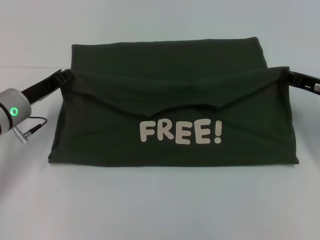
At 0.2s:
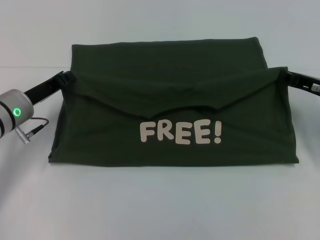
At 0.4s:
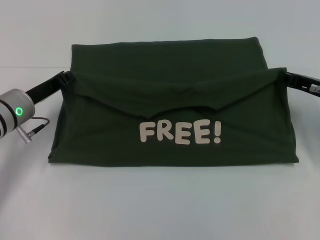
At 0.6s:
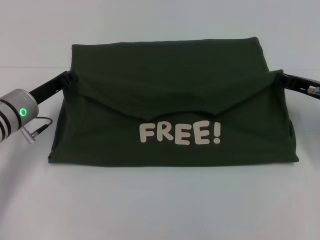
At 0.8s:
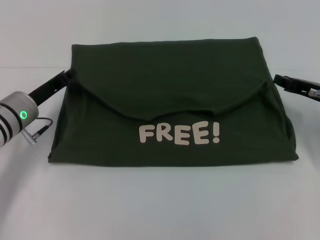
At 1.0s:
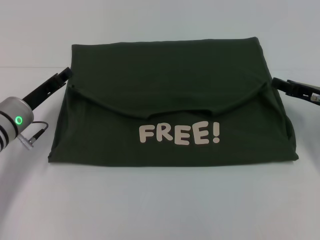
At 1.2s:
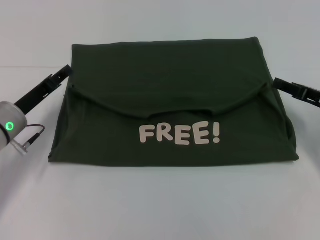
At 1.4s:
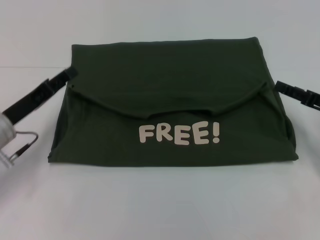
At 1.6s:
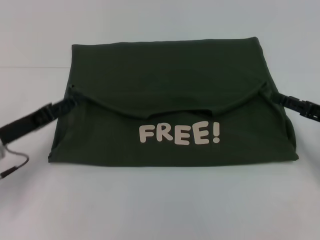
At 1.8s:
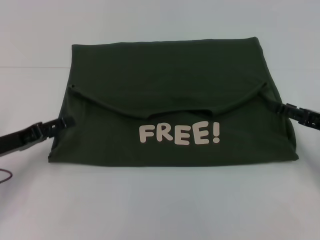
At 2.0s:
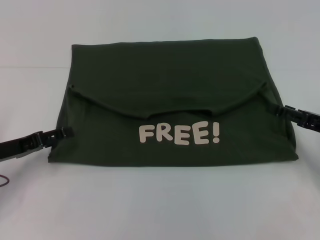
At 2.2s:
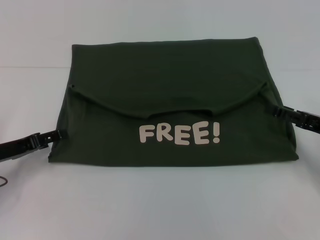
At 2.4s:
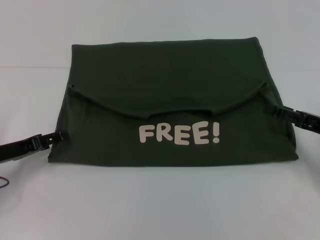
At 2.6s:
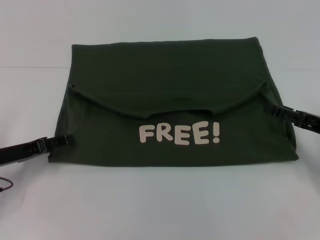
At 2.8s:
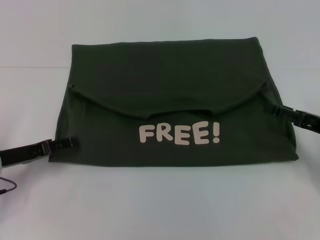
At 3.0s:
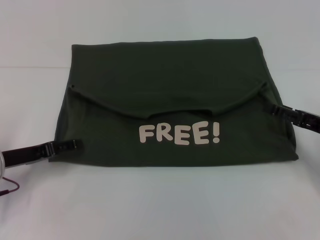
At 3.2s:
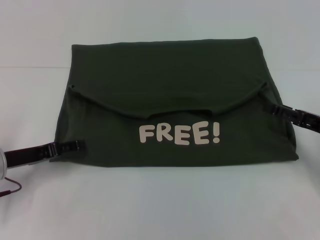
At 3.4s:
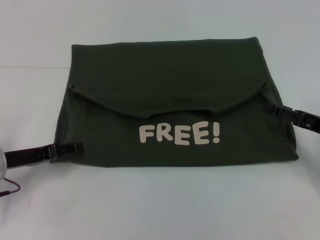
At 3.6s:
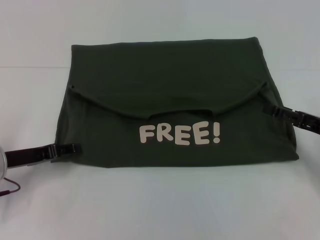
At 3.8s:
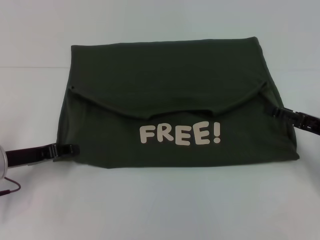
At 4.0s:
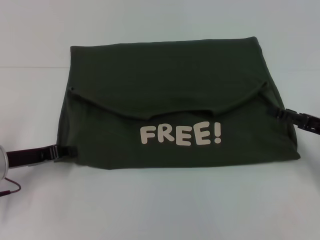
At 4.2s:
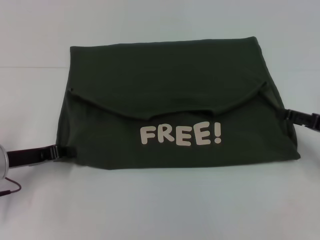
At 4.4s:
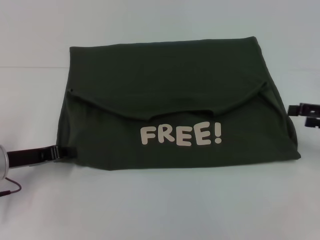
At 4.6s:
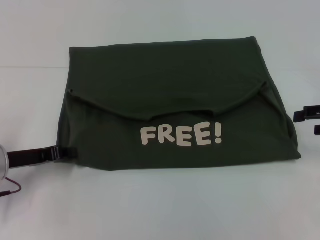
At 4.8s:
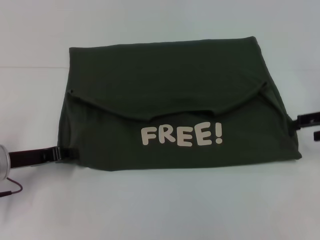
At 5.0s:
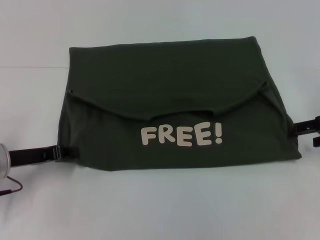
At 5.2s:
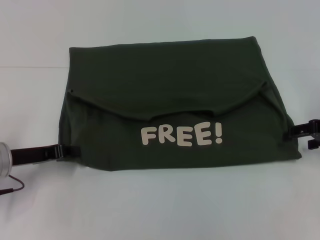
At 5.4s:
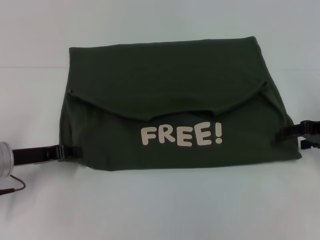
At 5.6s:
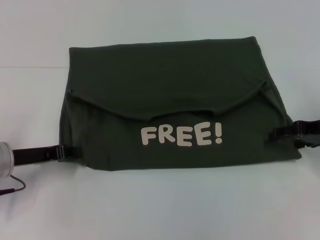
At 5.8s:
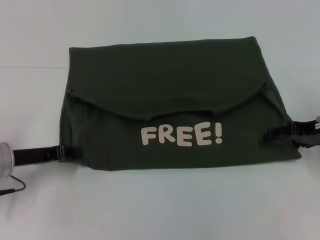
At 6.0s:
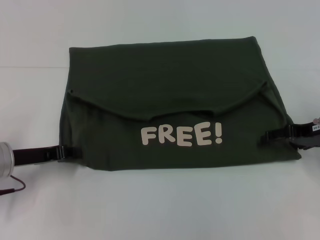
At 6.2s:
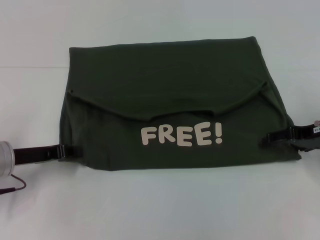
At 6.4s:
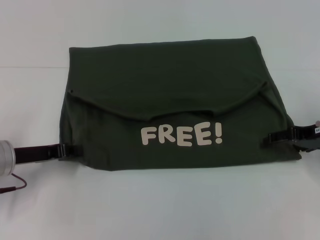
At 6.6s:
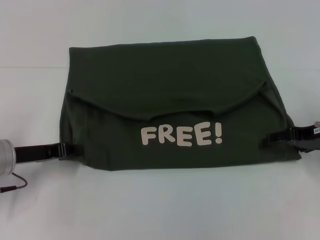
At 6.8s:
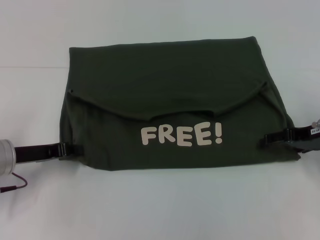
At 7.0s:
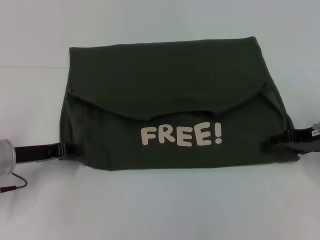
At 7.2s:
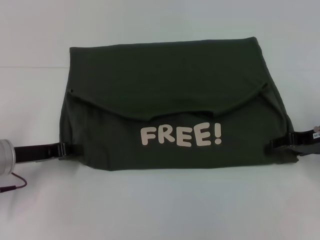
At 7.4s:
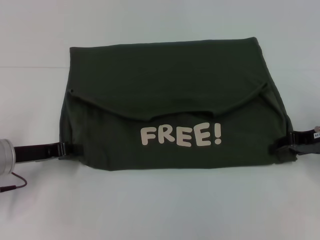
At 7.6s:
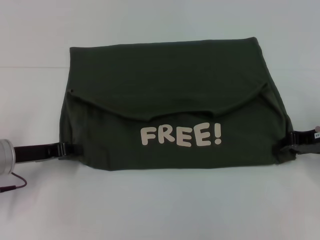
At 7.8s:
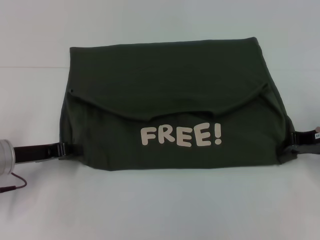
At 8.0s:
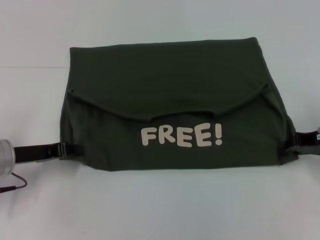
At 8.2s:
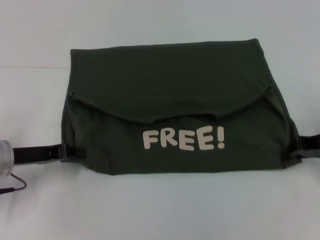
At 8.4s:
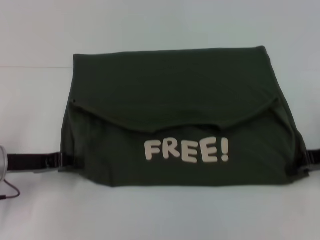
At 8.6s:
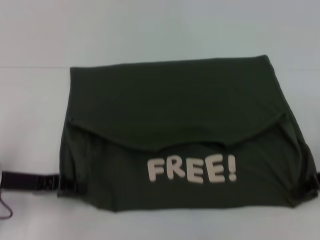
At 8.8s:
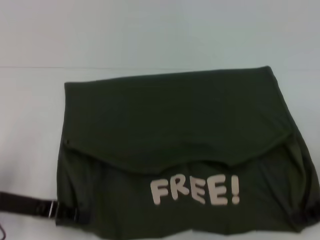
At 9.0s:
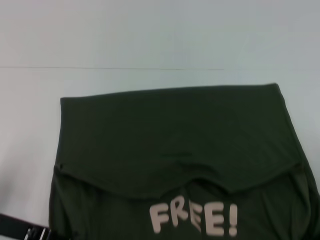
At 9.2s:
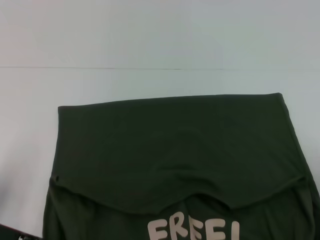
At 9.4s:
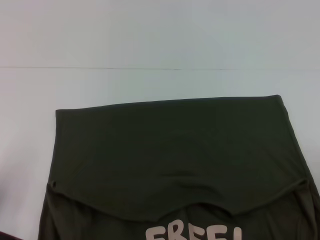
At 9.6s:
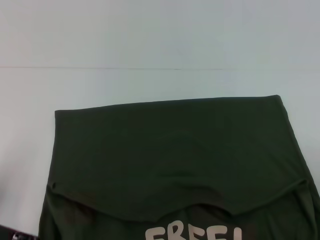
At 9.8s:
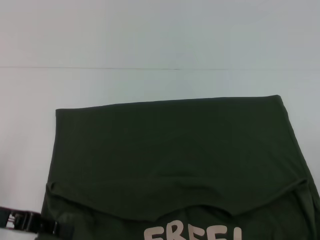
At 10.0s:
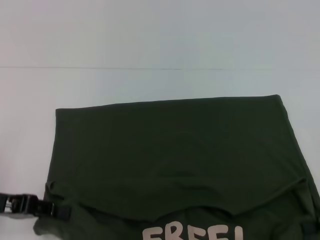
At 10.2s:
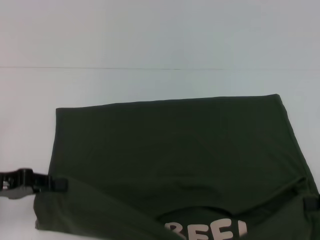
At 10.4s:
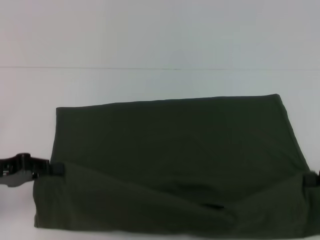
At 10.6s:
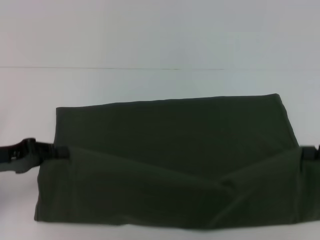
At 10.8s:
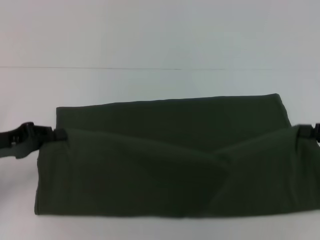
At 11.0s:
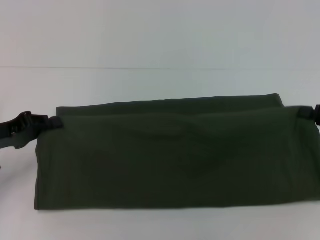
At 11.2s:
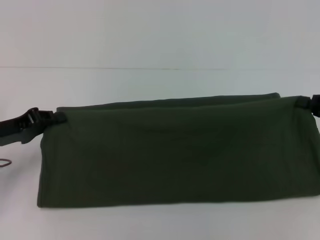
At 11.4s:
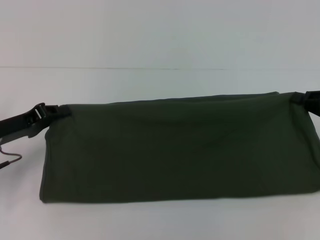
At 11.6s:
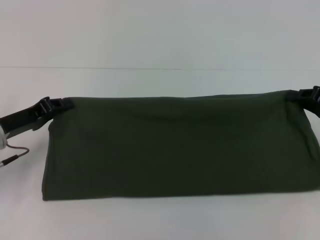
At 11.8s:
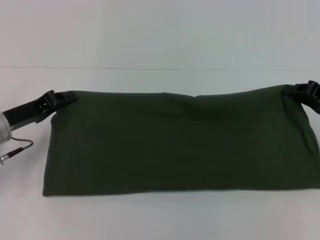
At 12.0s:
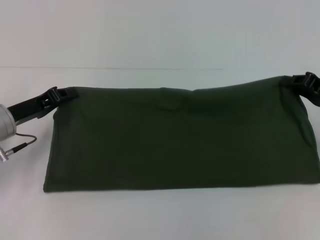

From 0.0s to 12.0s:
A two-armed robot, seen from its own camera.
Step, from 1.2s to 9.8s: Pull the clothes with your left hand.
Step, from 1.2s to 9.8s: Pull the clothes with your right hand.
From 0.0s to 1.6s: Both grippers move backward, about 5 cm. The right gripper opens up. The left gripper opens up.
From 3.0s to 4.4s: The right gripper travels upward by some 5 cm; the left gripper closes up.
From 4.4s to 6.0s: The right gripper moves to the left, about 5 cm.
From 6.0s to 7.6s: The right gripper closes.
From 7.6s to 9.0s: Both grippers move backward, approximately 10 cm. The right gripper closes up.
From 9.0s to 10.4s: The left gripper changes place by approximately 5 cm. The right gripper is displaced to the right by some 5 cm.
From 10.4s to 12.0s: The two grippers go roughly 10 cm forward.

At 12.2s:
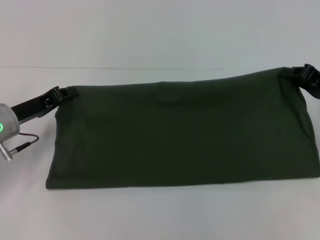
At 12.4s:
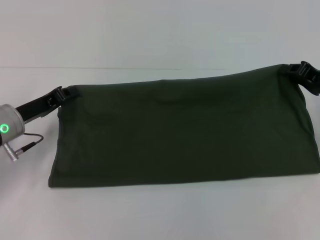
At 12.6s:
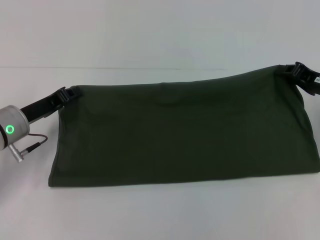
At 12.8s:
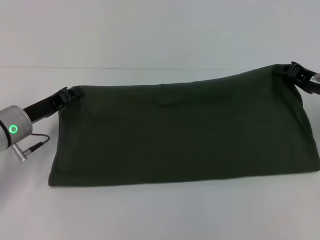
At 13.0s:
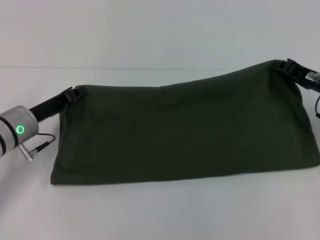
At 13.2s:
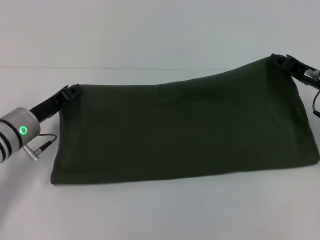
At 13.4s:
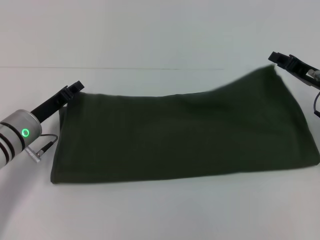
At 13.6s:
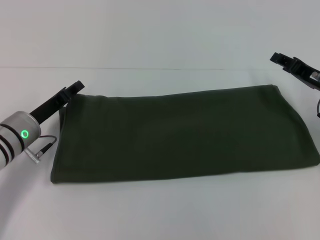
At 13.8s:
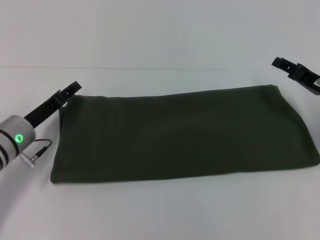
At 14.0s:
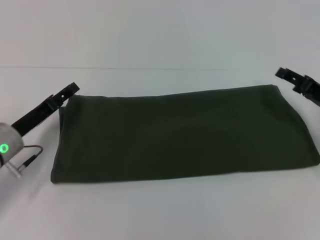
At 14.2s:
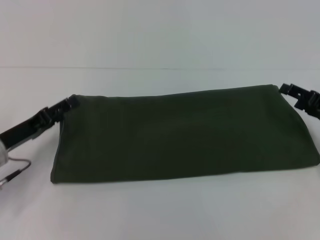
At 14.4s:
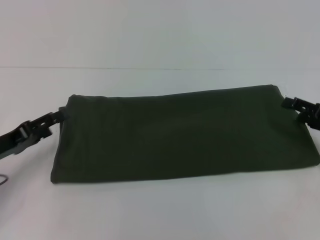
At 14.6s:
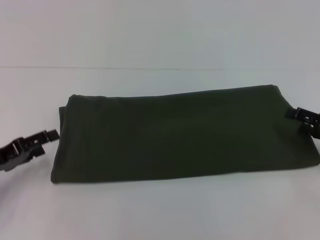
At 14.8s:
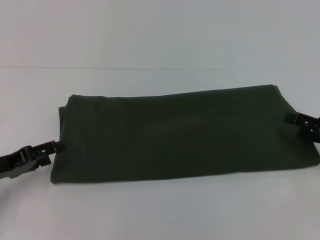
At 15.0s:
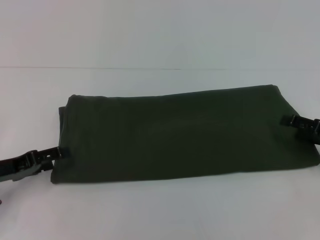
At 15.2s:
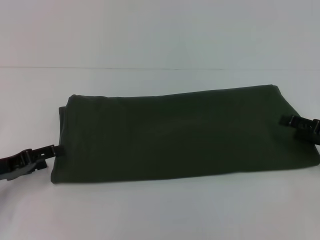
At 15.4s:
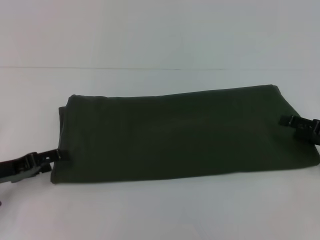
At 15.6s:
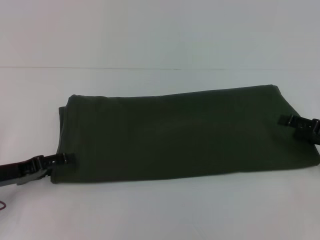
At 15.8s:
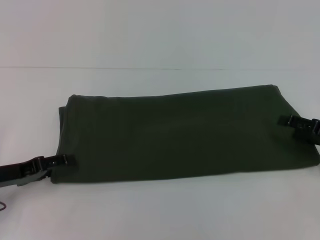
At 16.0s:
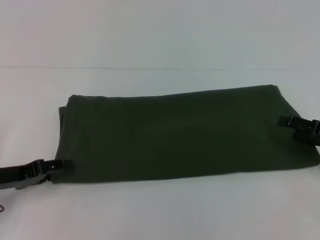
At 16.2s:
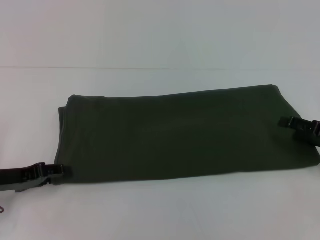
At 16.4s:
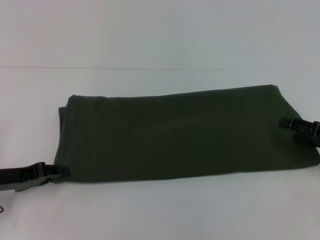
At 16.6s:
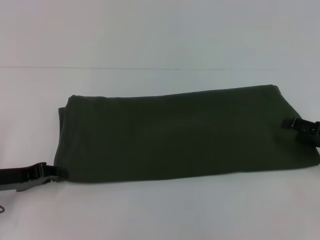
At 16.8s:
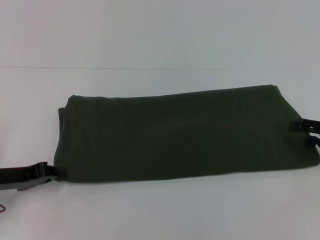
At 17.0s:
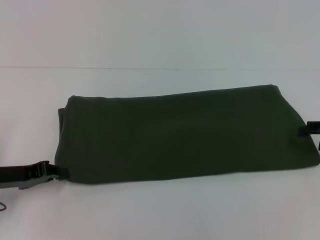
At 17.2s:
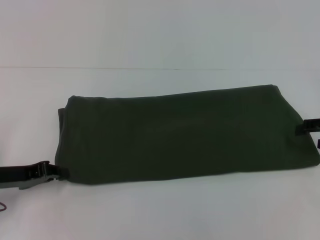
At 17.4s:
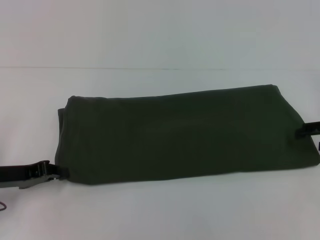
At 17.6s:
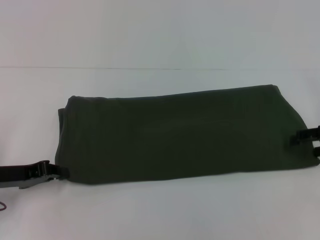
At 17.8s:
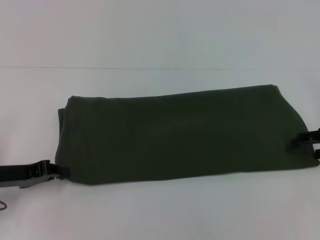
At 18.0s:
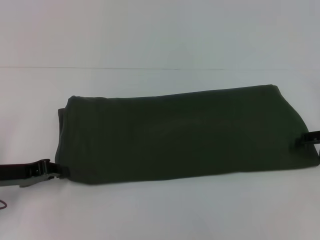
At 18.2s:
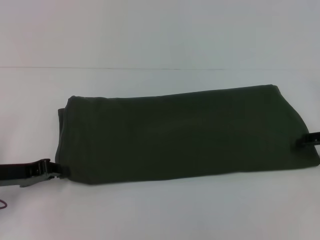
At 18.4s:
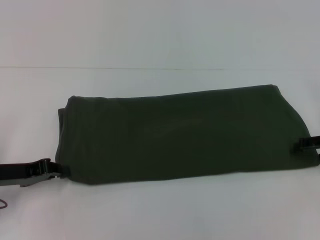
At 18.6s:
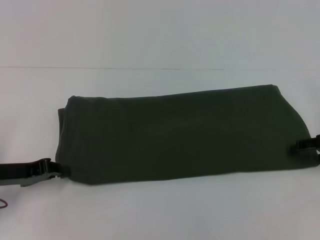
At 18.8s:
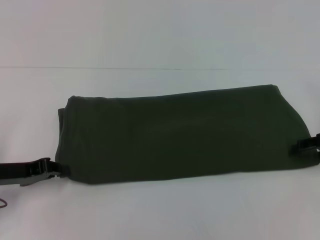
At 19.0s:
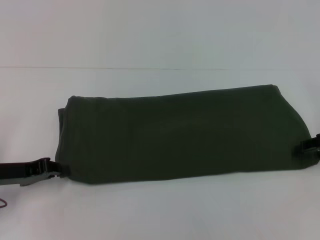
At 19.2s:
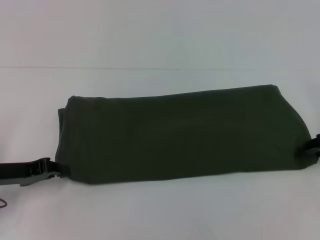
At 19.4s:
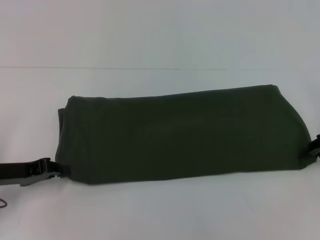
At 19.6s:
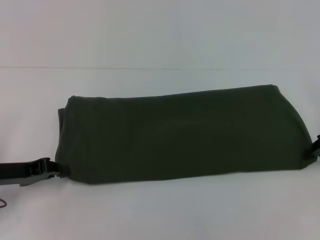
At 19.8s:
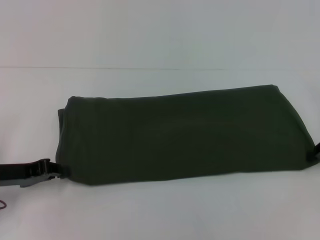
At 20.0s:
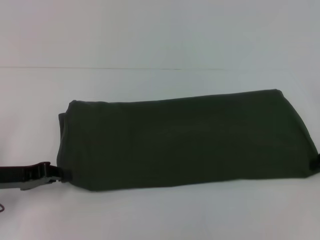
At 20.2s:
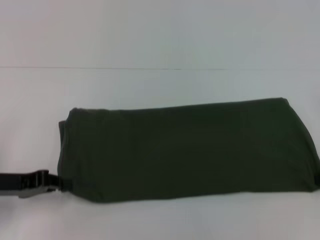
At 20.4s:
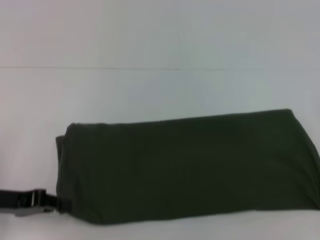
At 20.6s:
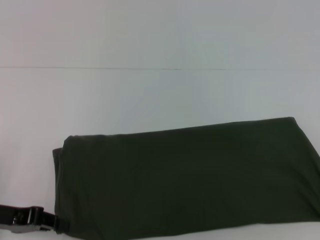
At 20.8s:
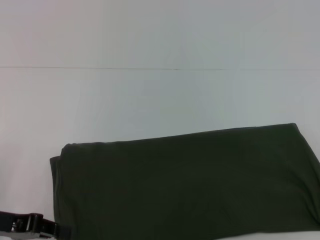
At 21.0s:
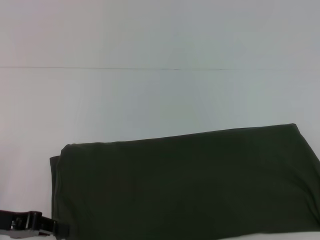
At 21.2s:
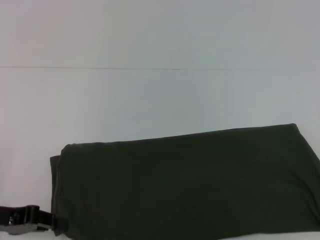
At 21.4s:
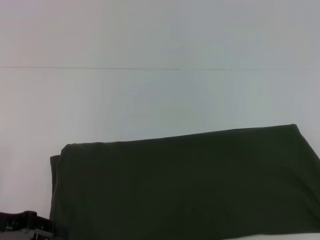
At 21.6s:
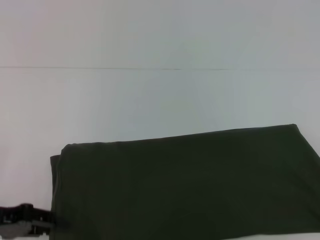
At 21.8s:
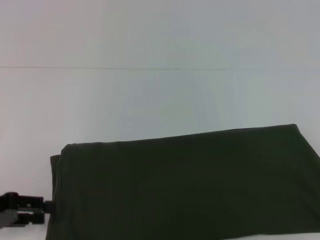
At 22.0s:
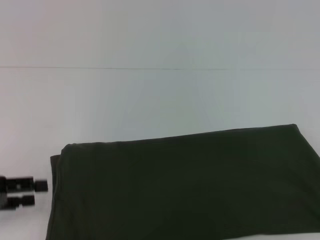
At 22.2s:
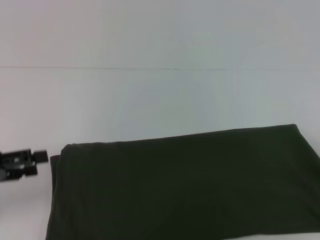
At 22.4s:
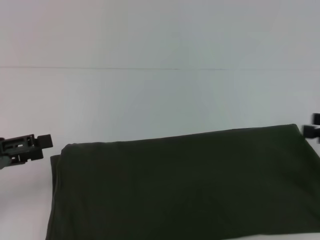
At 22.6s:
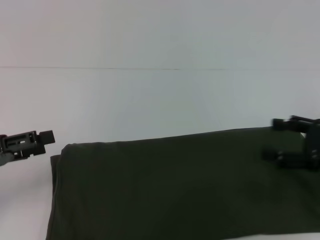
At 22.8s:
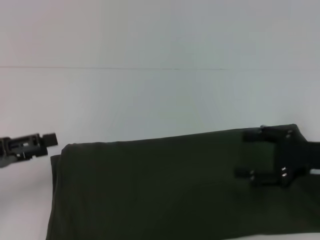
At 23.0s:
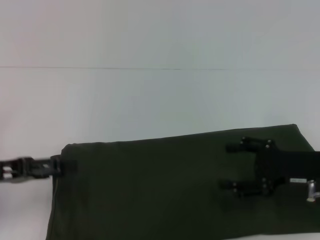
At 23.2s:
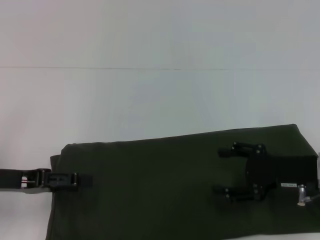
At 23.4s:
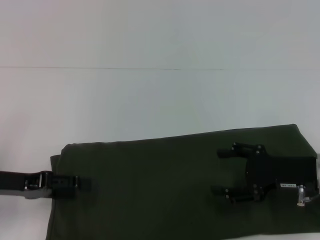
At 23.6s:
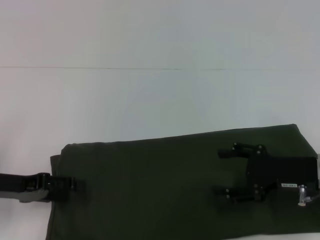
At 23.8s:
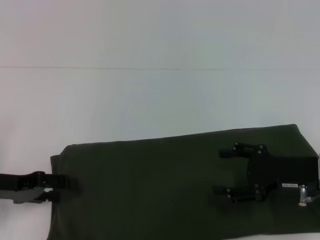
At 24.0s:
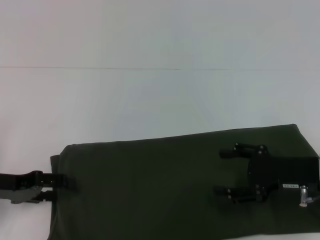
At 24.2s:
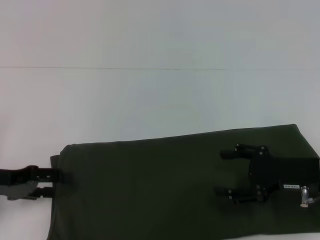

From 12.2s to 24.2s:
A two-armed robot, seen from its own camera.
Step, from 14.0s to 21.8s: Pull the clothes with your left hand.
Step, from 14.0s to 21.8s: Pull the clothes with your right hand.
From 12.2s to 13.8s: The right gripper opens its fingers. Meanwhile the left gripper opens.
From 13.8s to 15.2s: The left gripper heads backward and to the left, covering roughly 10 cm, and opens its fingers, while the right gripper moves backward, approximately 5 cm.
From 15.2s to 16.6s: The left gripper closes.
From 16.6s to 18.2s: The left gripper closes.
From 19.8s to 21.2s: The left gripper shifts by approximately 5 cm, while the right gripper moves backward, approximately 5 cm.
From 21.2s to 22.6s: The left gripper moves some 5 cm, and opens. The right gripper moves to the left, some 5 cm, and opens.
From 22.6s to 24.2s: The right gripper travels to the left by some 5 cm.
